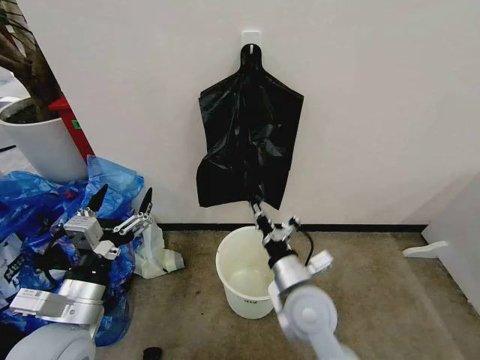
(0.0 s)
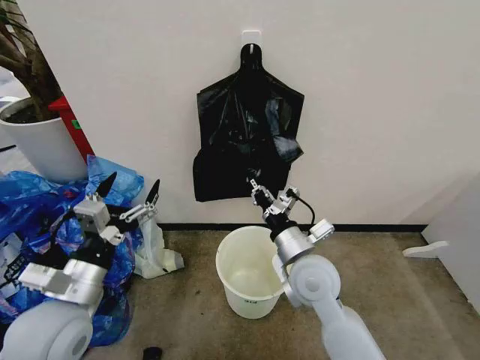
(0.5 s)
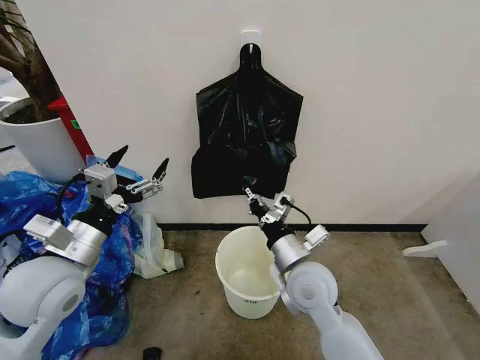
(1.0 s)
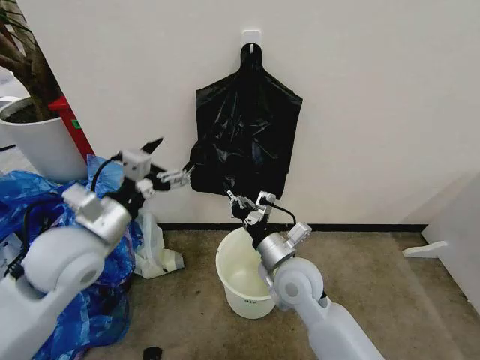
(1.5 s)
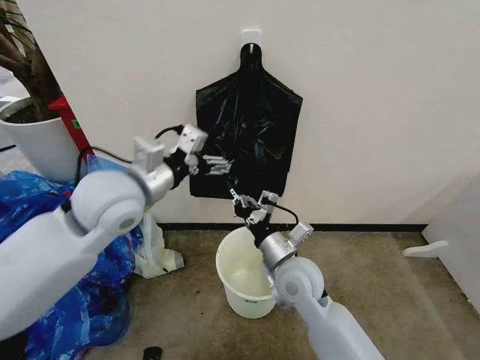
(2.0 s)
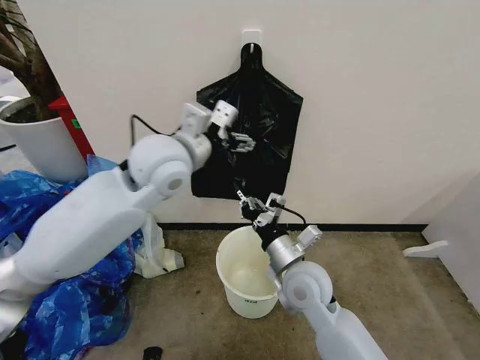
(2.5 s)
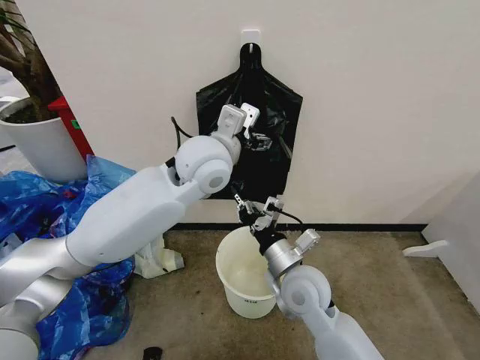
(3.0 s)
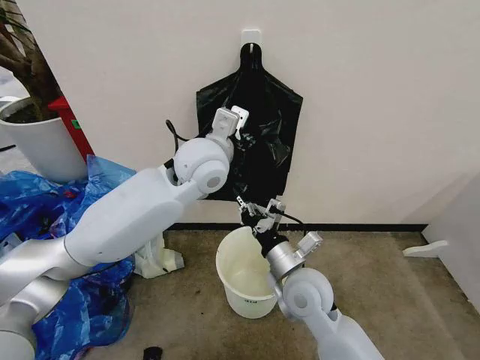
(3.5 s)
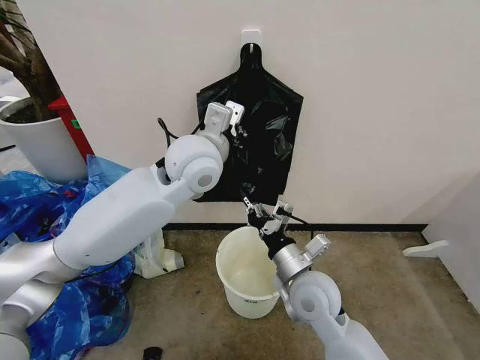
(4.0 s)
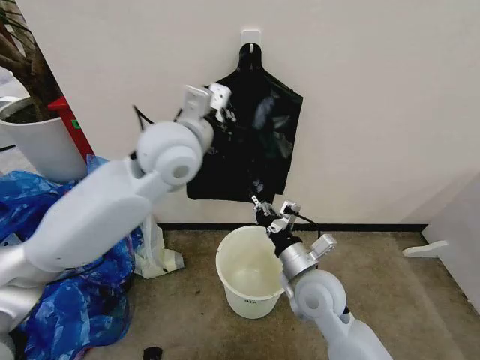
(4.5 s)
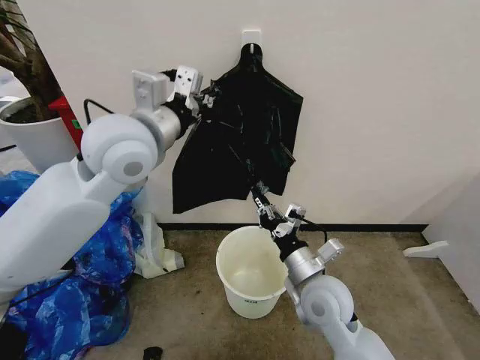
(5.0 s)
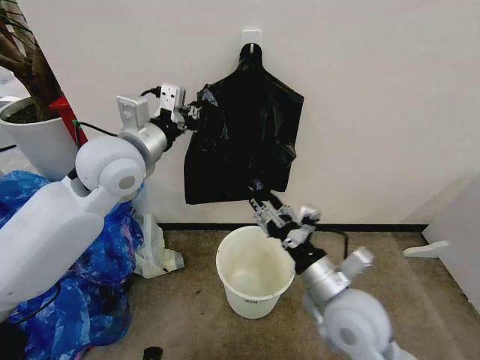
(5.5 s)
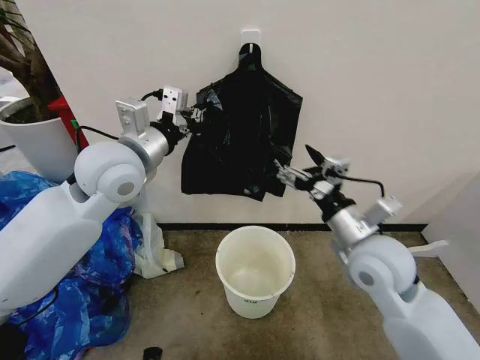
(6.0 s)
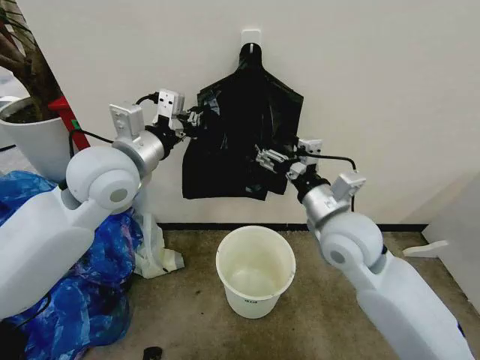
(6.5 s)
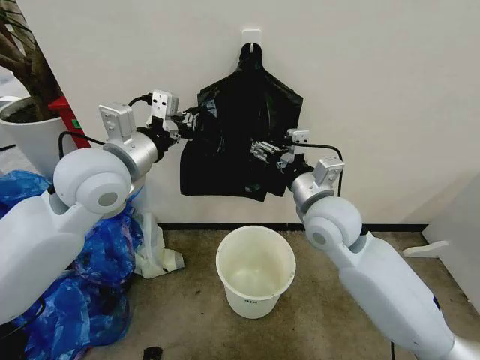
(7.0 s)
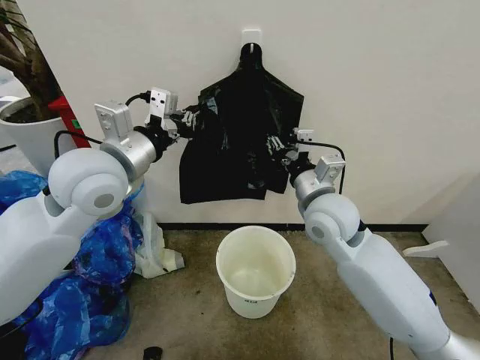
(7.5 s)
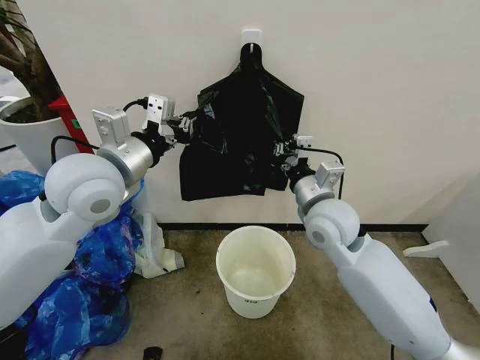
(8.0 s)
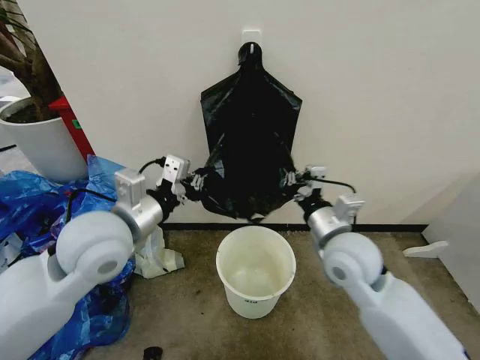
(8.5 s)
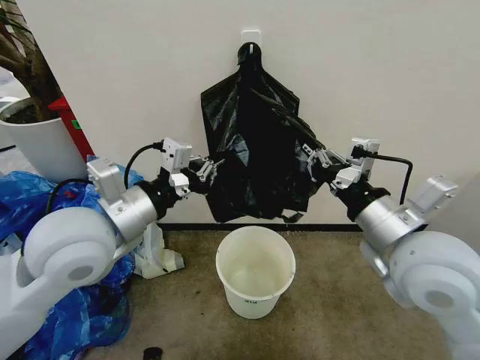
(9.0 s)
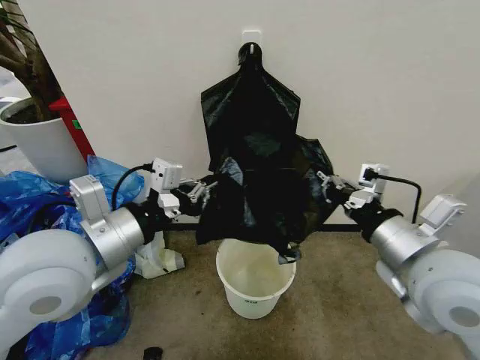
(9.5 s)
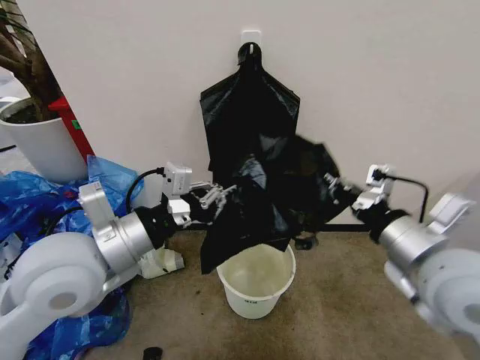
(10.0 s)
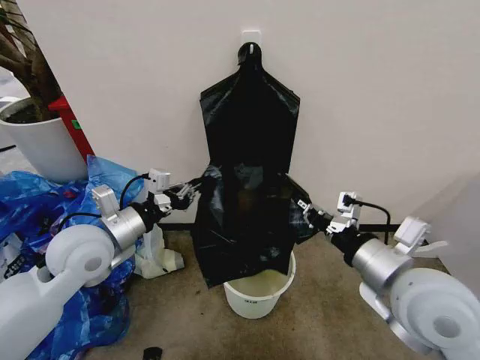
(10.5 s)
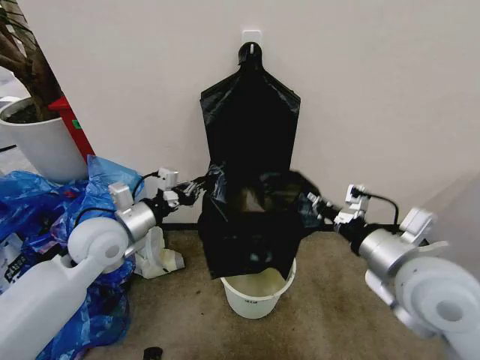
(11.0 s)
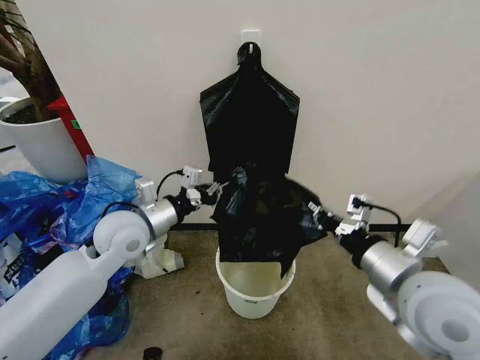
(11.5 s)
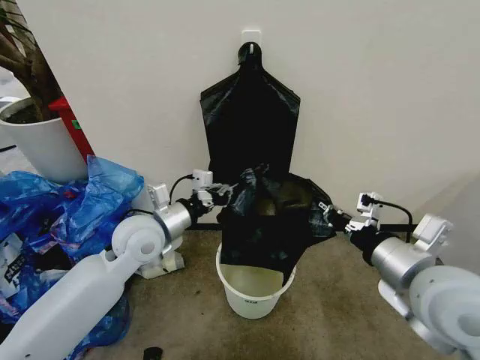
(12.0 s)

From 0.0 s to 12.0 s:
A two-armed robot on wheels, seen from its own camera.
Task of the whole recording: Place the garbage bag over the trash bin.
From 0.0 s to 2.0 s: The left gripper goes approximately 25 cm forward and upward. Meanwhile the right gripper heads forward, covering about 5 cm.
From 2.0 s to 4.0 s: The left gripper travels to the right and forward by about 15 cm, and closes up.
From 4.0 s to 6.0 s: The left gripper heads to the left, covering approximately 10 cm. Meanwhile the right gripper travels upward and to the right by approximately 15 cm, and opens up.
From 6.0 s to 8.0 s: The right gripper is displaced forward and to the left by about 10 cm, and closes.
From 8.0 s to 10.0 s: The left gripper goes approximately 10 cm backward. Meanwhile the right gripper heads backward, to the right and upward, covering about 20 cm.
From 10.0 s to 12.0 s: The left gripper goes some 20 cm forward and downward.

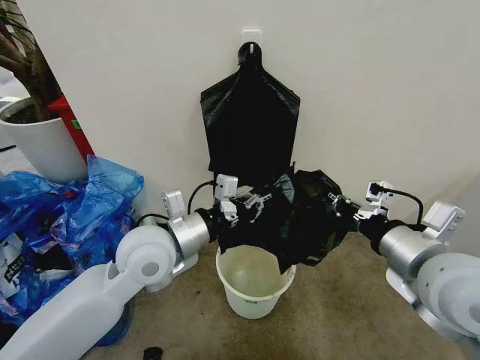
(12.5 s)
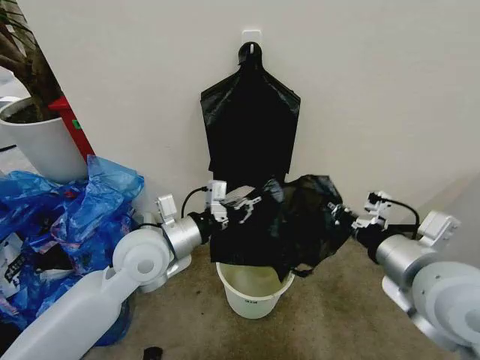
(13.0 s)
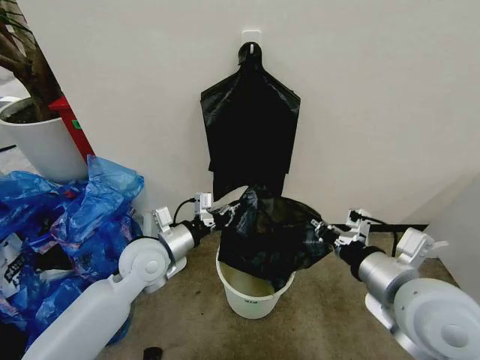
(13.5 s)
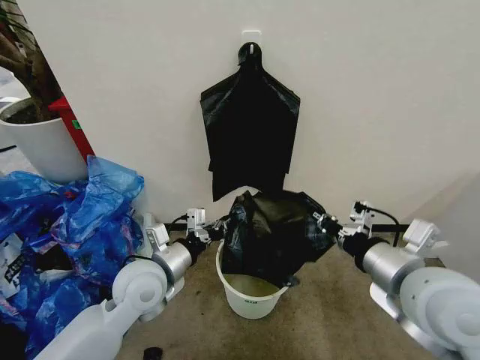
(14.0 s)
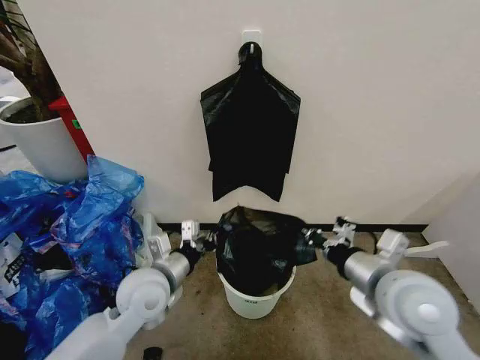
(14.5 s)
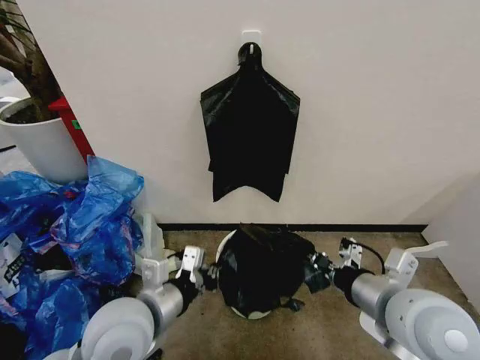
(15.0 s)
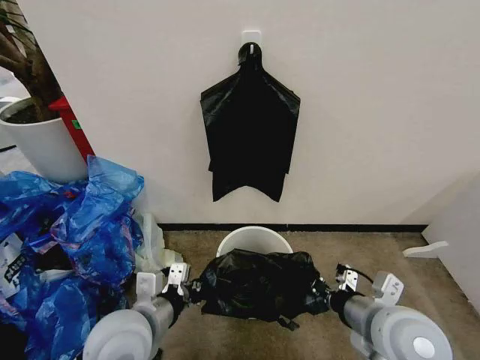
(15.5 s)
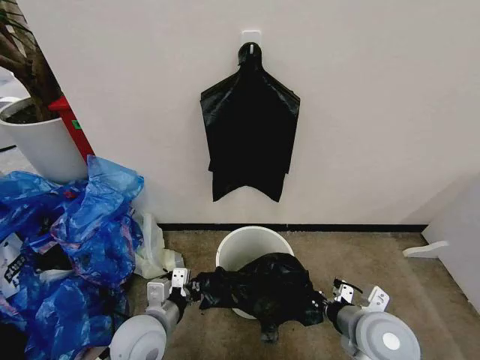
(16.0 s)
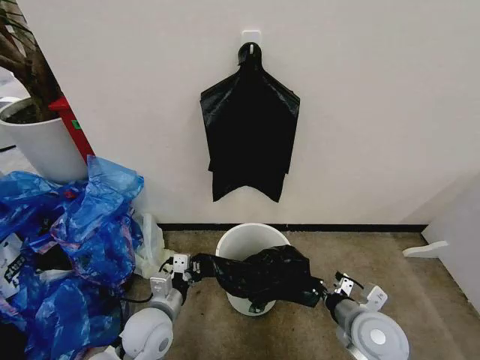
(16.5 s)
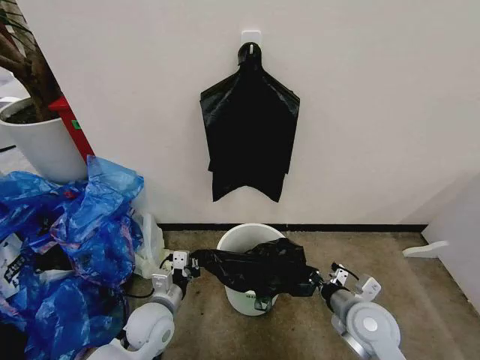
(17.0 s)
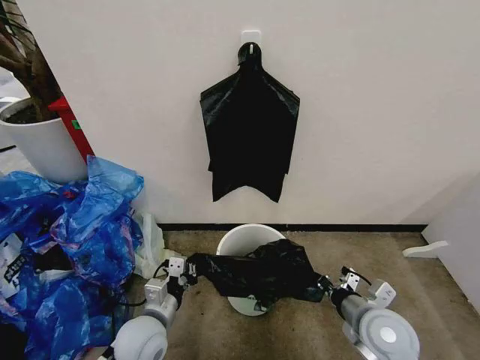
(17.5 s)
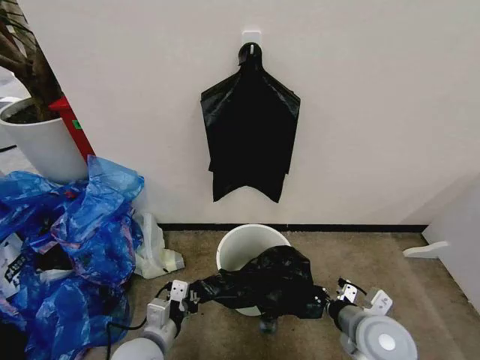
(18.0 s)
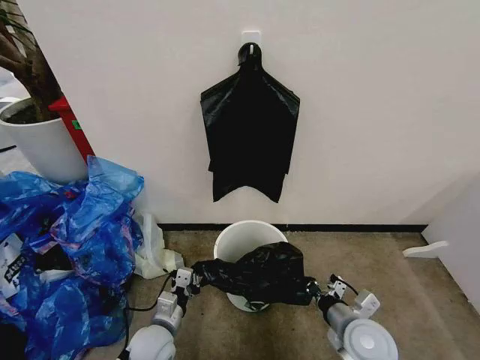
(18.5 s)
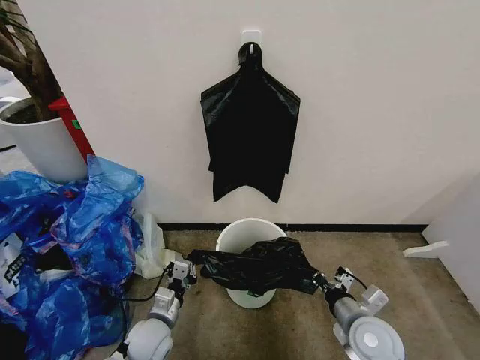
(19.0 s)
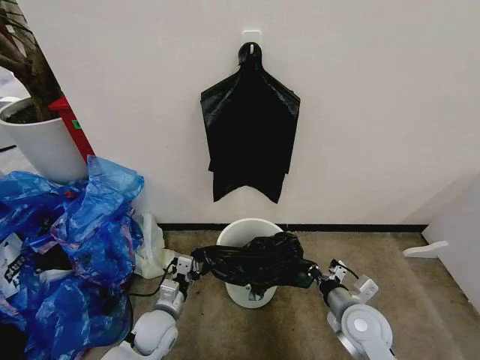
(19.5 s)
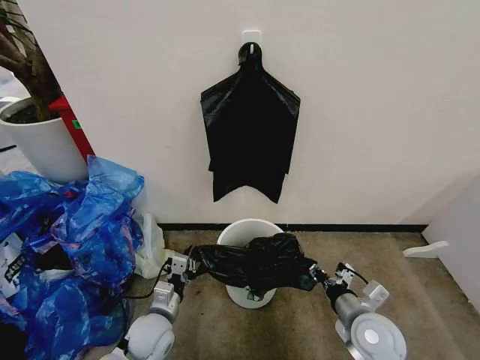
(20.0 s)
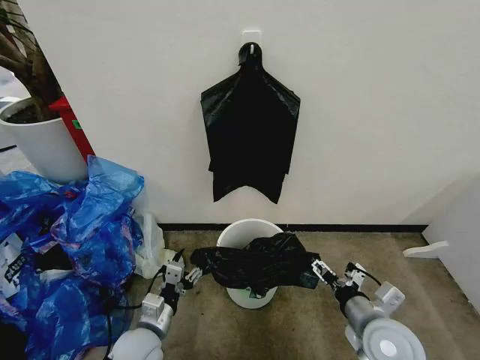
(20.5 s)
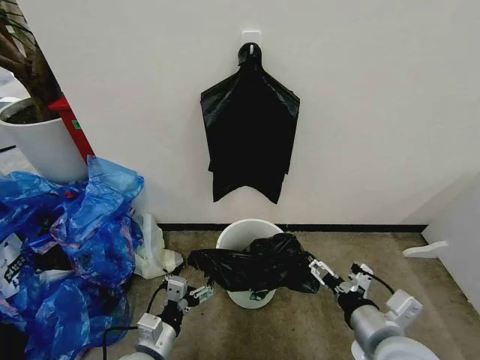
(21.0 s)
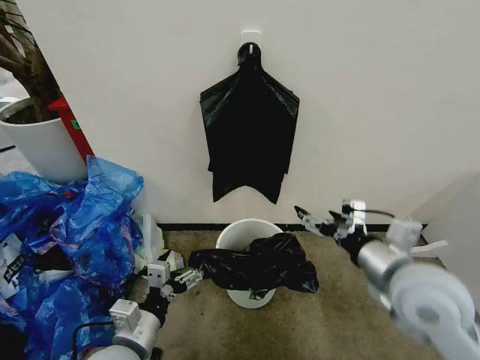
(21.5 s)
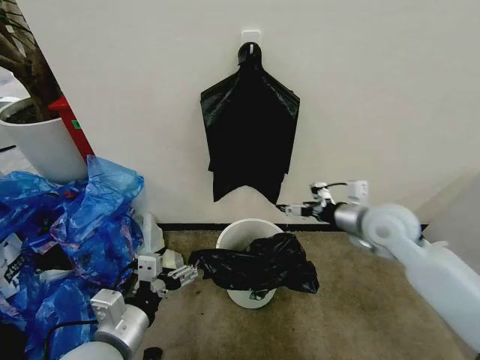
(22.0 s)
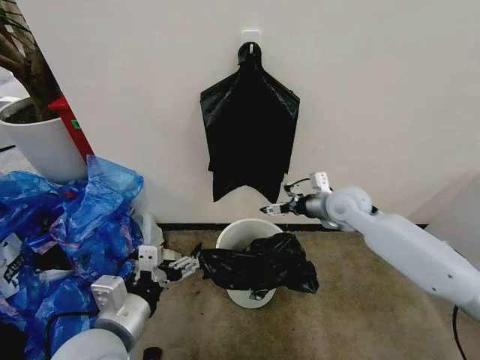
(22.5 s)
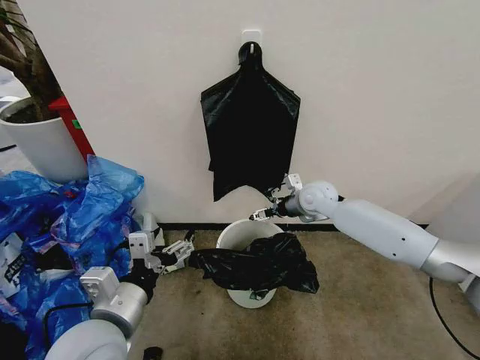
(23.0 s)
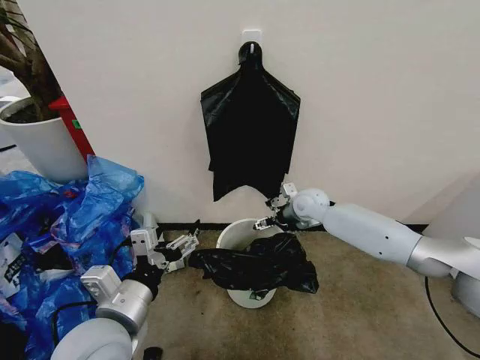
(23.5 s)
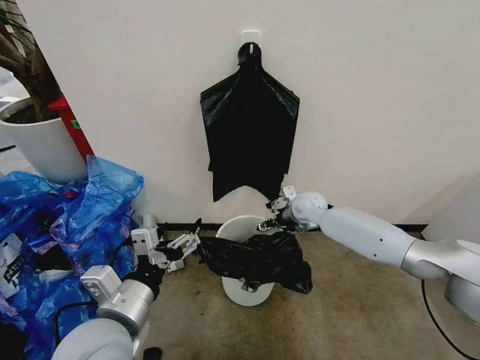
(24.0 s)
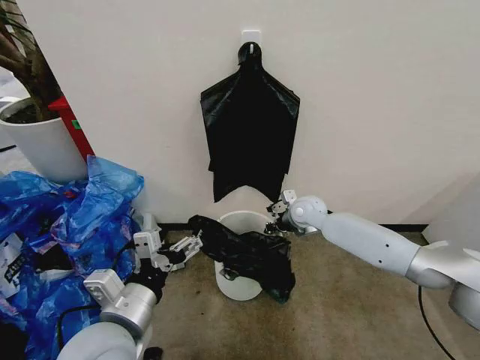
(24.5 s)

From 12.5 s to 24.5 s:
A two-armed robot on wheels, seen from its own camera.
Task of the whole recording: Place the garbage bag over the trash bin.
From 12.5 s to 14.5 s: The left gripper is displaced downward by approximately 10 cm; the right gripper travels downward by some 5 cm.
From 14.5 s to 16.5 s: The right gripper shifts roughly 15 cm downward. Meanwhile the left gripper travels downward by about 10 cm.
From 16.5 s to 18.5 s: The left gripper shifts some 5 cm downward, and moves roughly 5 cm backward and comes back.
From 18.5 s to 20.5 s: The left gripper opens. The right gripper changes place by about 5 cm, and opens.
From 20.5 s to 22.5 s: The left gripper moves upward, approximately 20 cm, while the right gripper heads forward, covering about 25 cm.
From 22.5 s to 24.5 s: The right gripper goes about 10 cm downward, to the left and forward, and closes.

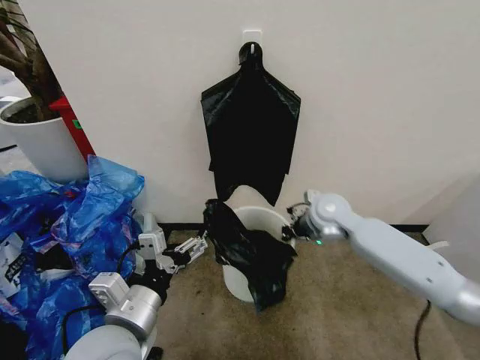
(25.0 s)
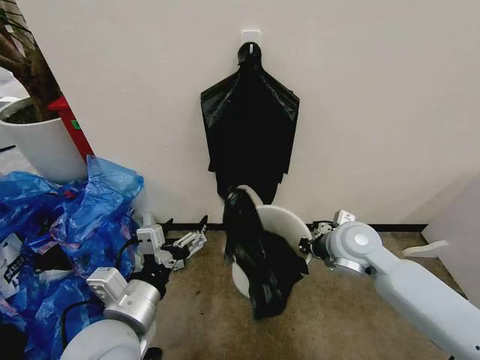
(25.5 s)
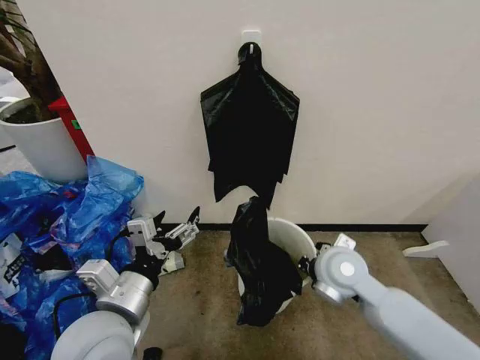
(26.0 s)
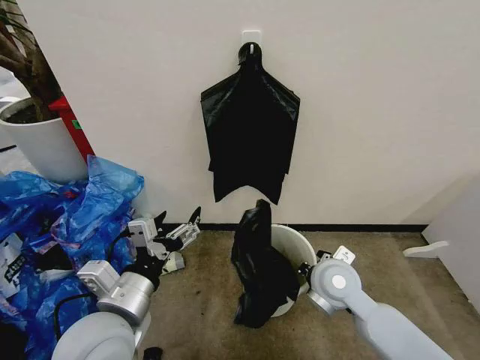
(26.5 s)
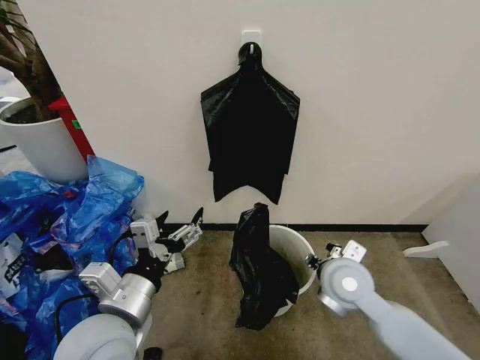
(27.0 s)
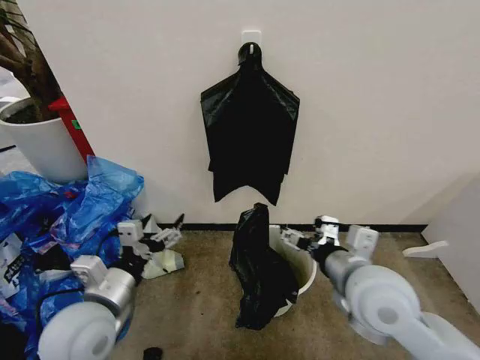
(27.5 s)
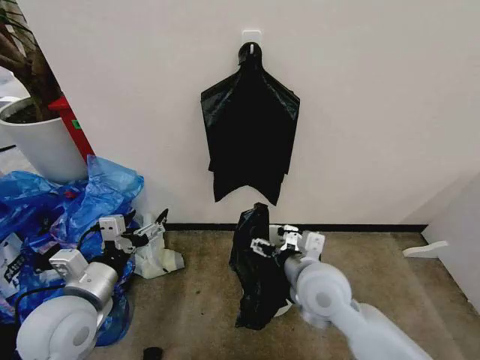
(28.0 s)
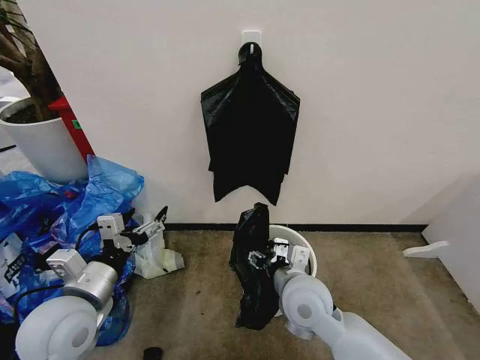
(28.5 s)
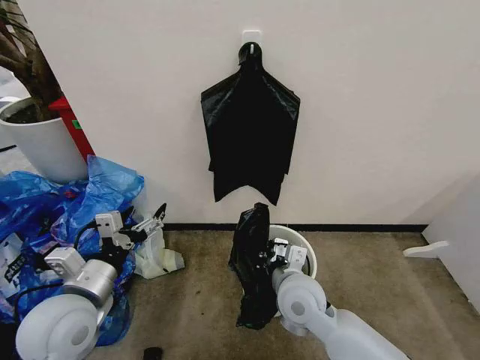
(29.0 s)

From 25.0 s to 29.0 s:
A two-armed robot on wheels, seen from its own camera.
Task of the whole recording: Place the garbage bag over the trash bin.
From 25.0 s to 27.0 s: The right gripper travels backward by roughly 20 cm, and opens its fingers.
From 27.0 s to 29.0 s: The two grippers go some 10 cm to the left. The right gripper closes up.
